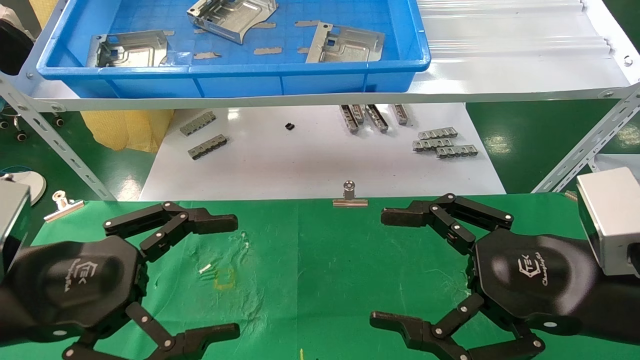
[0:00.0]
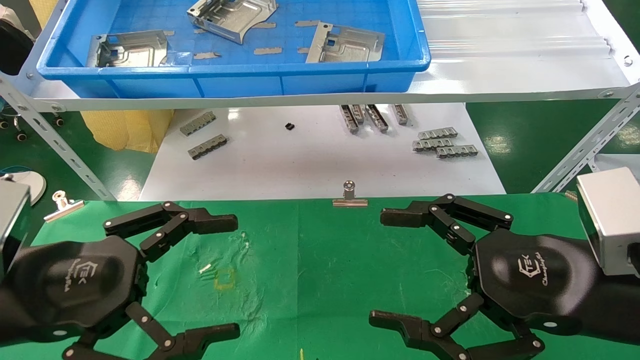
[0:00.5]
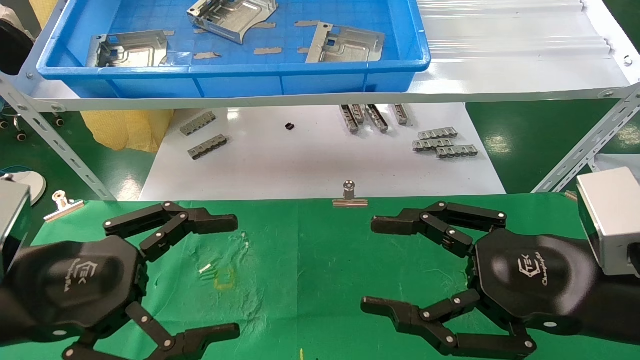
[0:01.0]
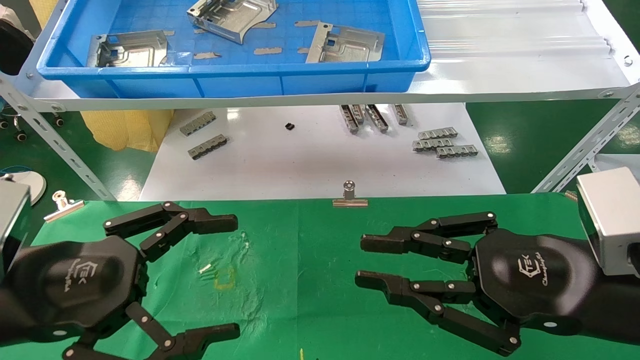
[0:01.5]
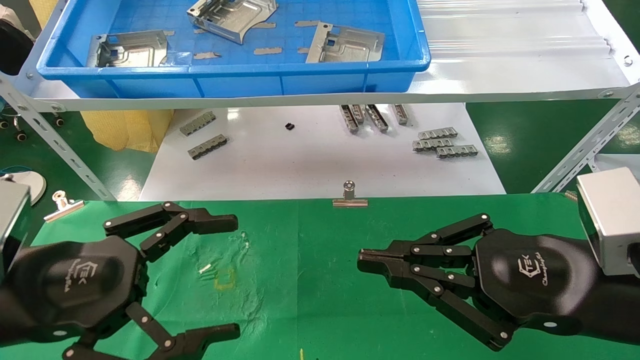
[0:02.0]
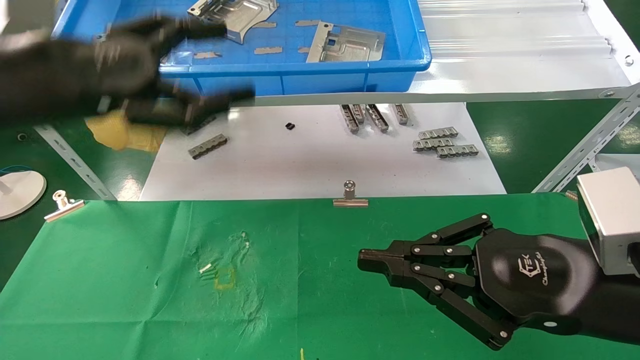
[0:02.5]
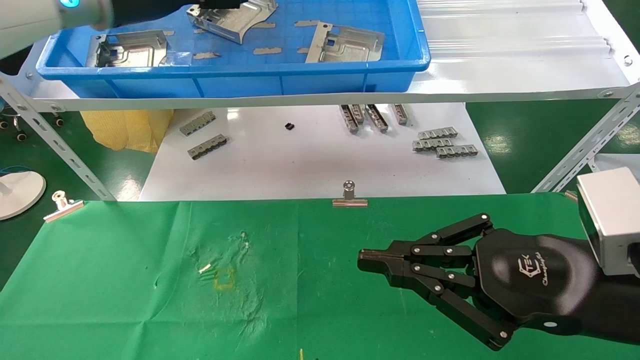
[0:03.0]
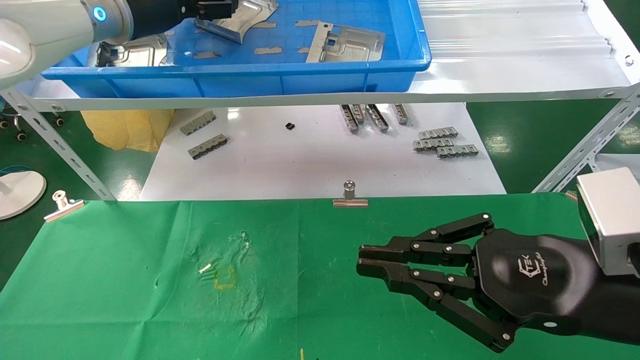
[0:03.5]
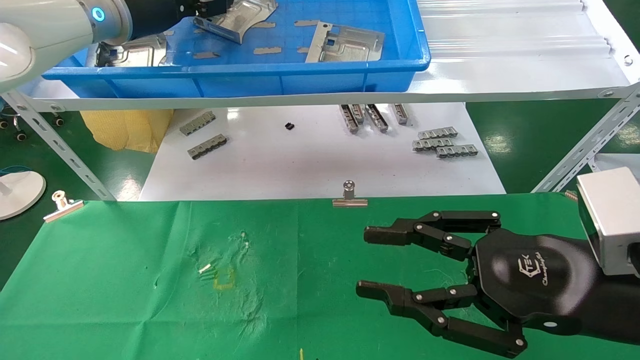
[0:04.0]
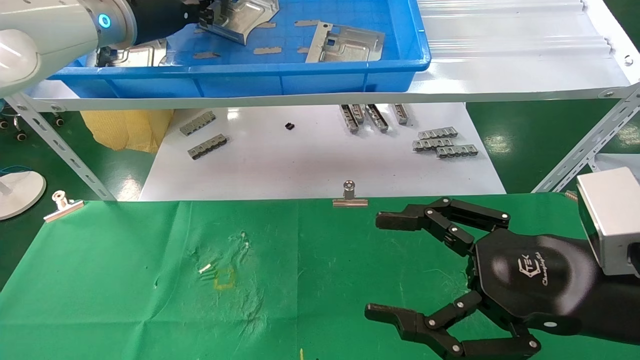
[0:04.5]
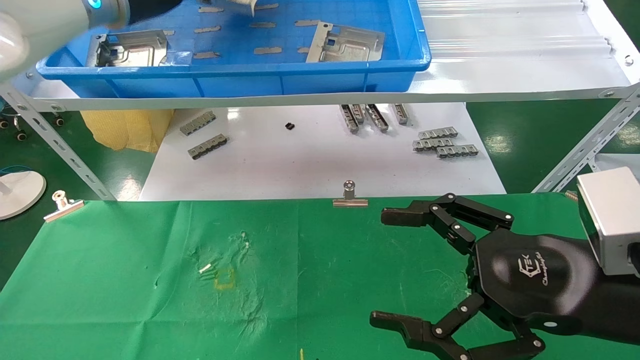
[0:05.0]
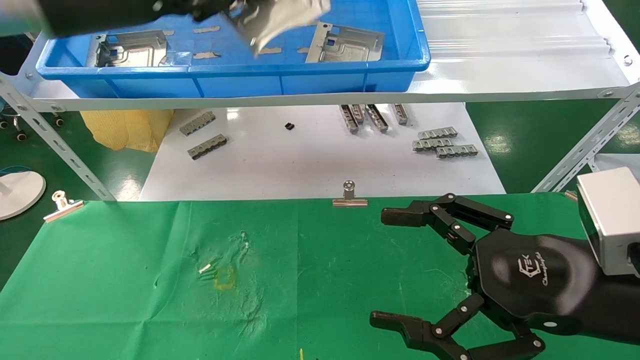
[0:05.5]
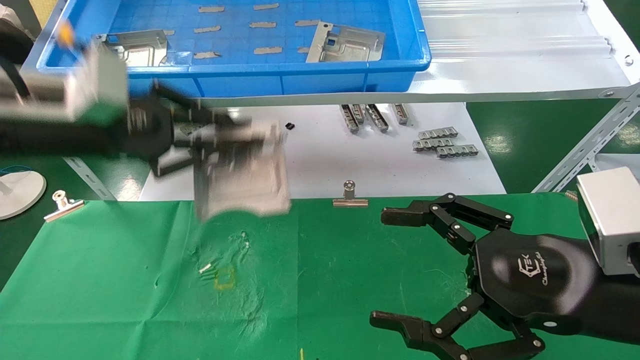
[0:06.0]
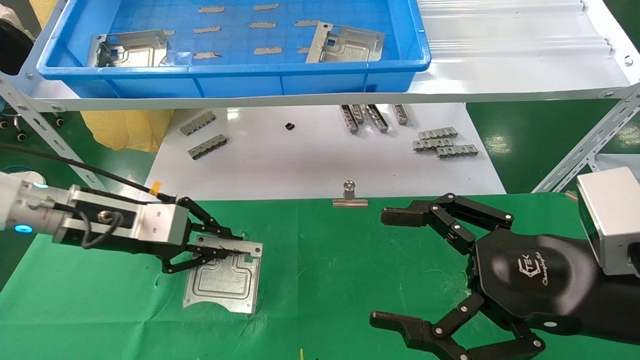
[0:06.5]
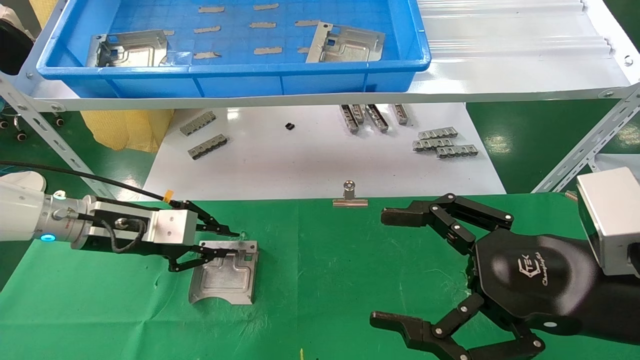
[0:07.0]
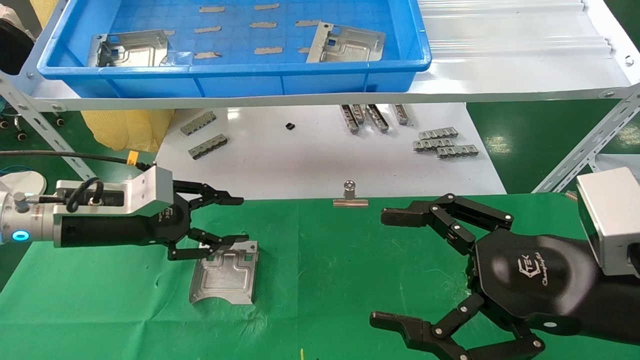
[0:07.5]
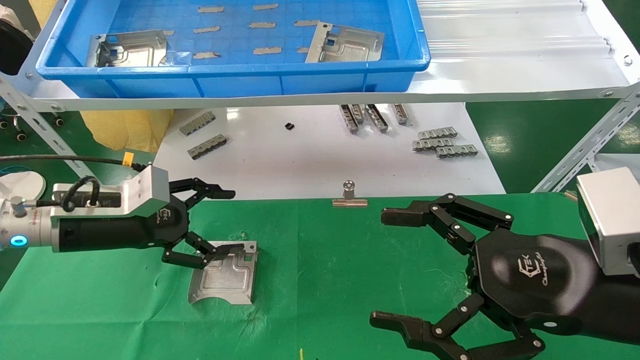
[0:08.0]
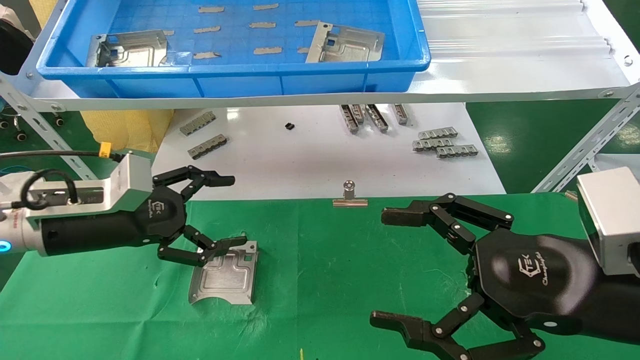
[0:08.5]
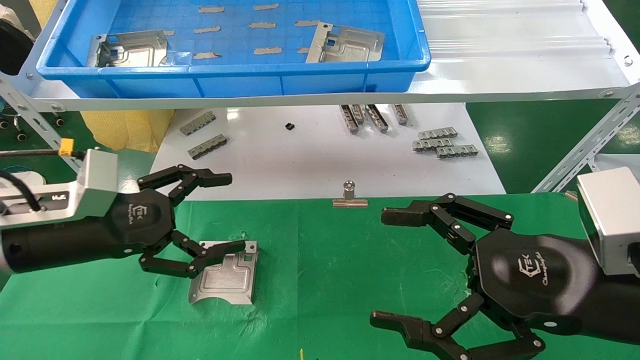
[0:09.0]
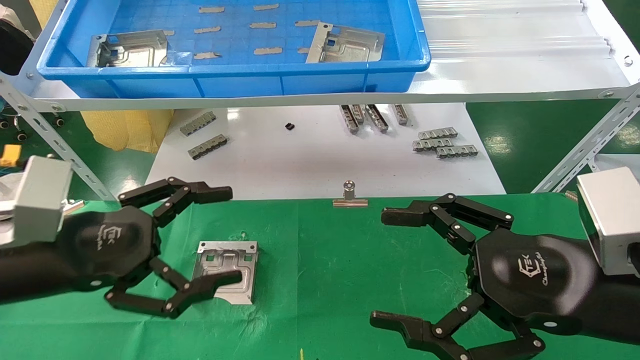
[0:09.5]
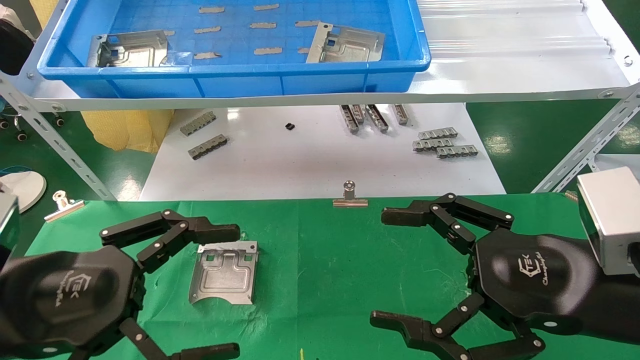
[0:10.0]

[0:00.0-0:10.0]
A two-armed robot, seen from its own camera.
Task of the whole recording: use the mechanical arm to pick up the parts and place them on the table.
Step, 0:02.5 to 0:04.5: Pick up the hard drive bracket from the feeding area.
Step, 0:05.0 to 0:07.0: Place the hard drive bracket into the box.
0:00.0 to 0:02.0: The right gripper closes.
0:02.0 to 0:04.0: The left gripper shifts approximately 35 cm forward and upward.
0:04.0 to 0:06.0: The right gripper opens up. Meanwhile the left gripper is displaced backward and downward by about 15 cm, and closes up.
0:06.0 to 0:08.0: The left gripper is displaced downward by about 10 cm, and opens.
0:08.0 to 0:10.0: The left gripper is displaced backward by some 15 cm.

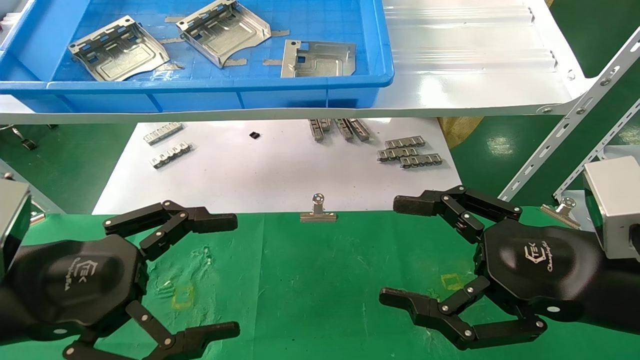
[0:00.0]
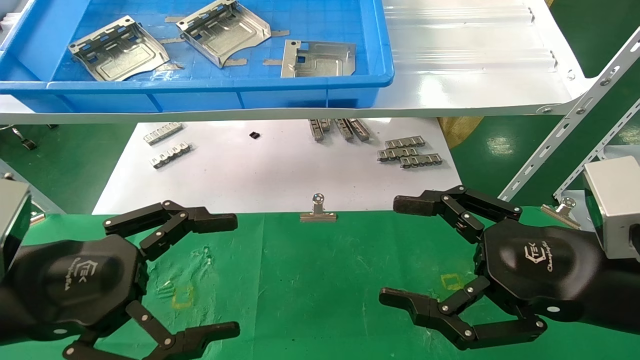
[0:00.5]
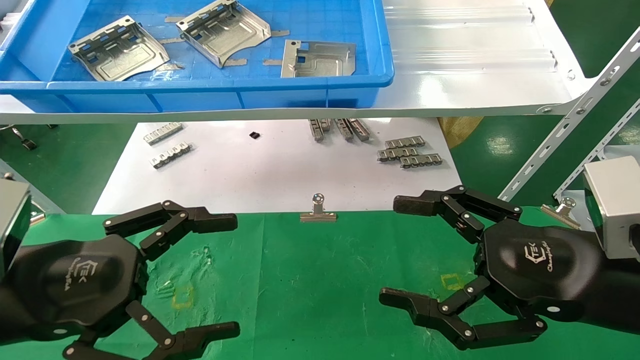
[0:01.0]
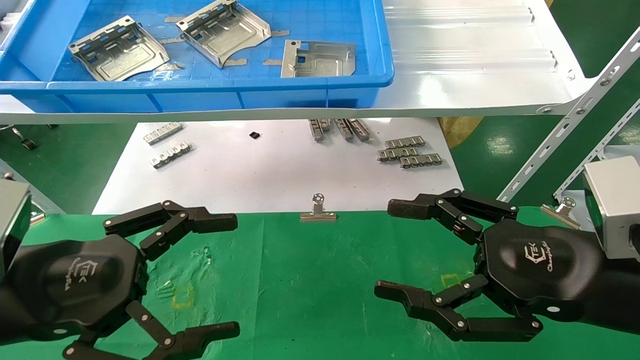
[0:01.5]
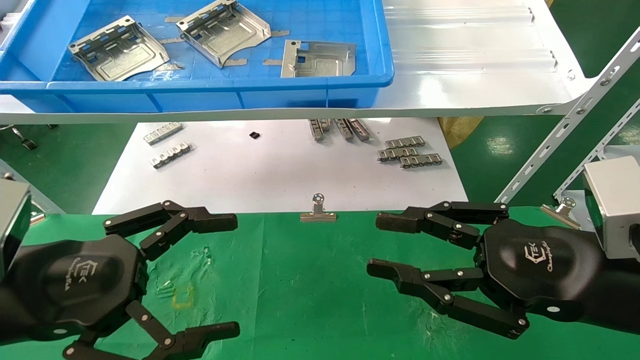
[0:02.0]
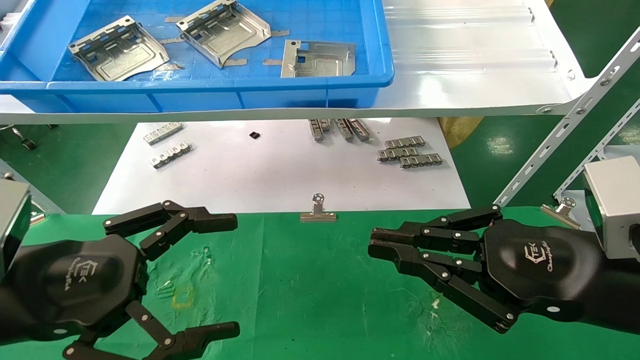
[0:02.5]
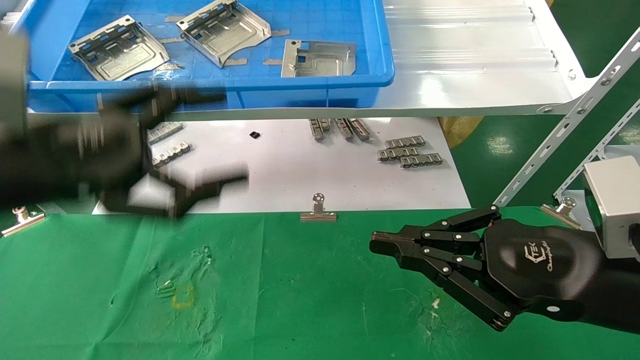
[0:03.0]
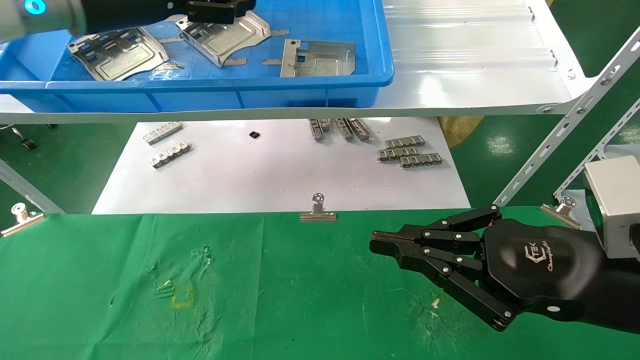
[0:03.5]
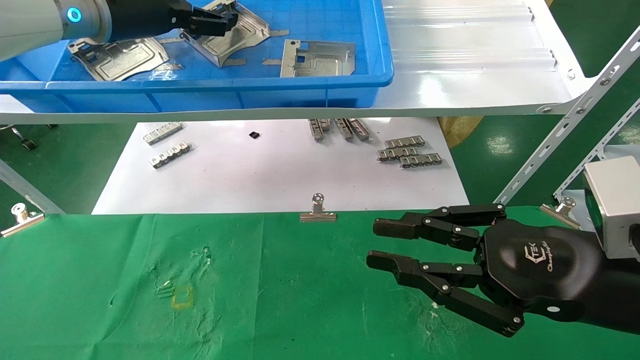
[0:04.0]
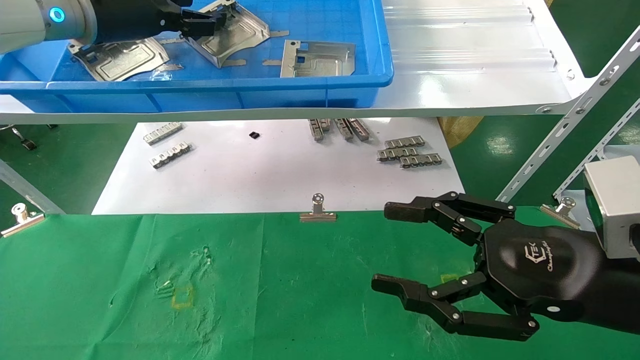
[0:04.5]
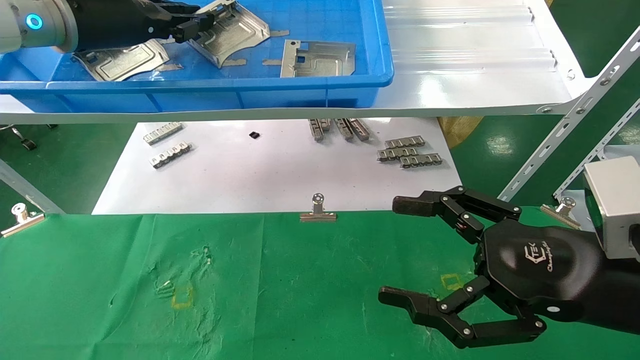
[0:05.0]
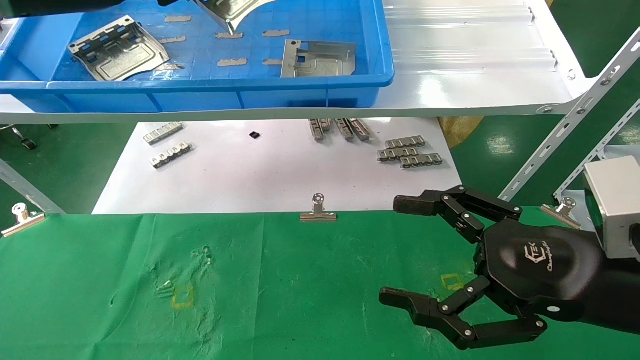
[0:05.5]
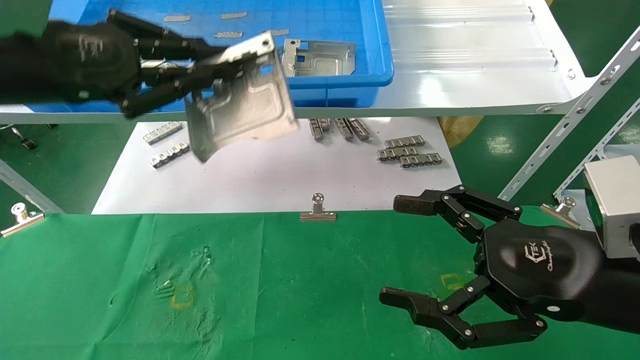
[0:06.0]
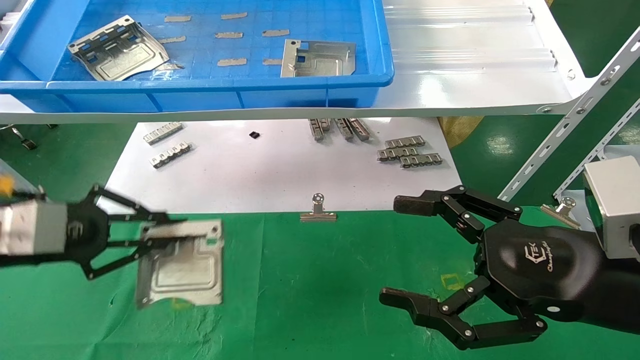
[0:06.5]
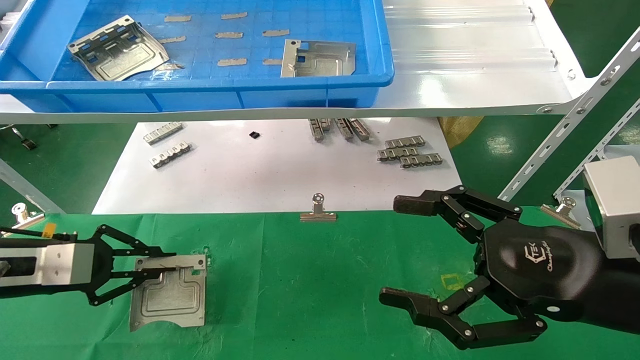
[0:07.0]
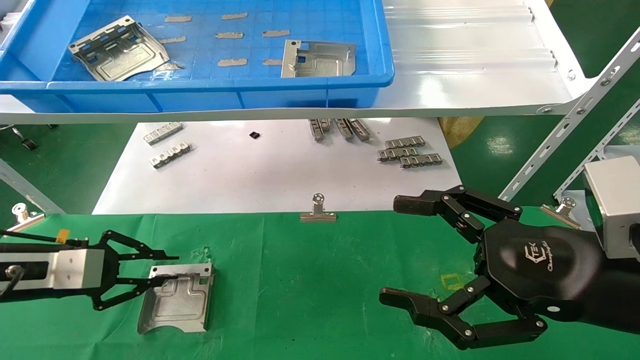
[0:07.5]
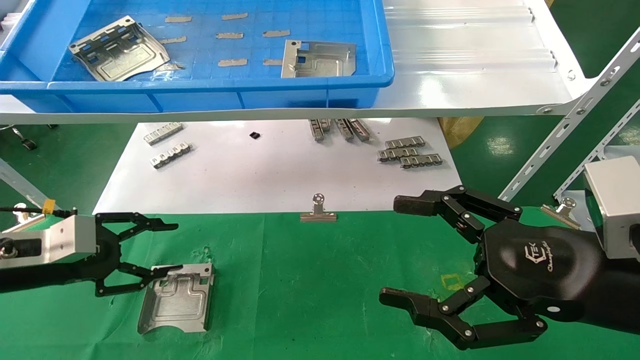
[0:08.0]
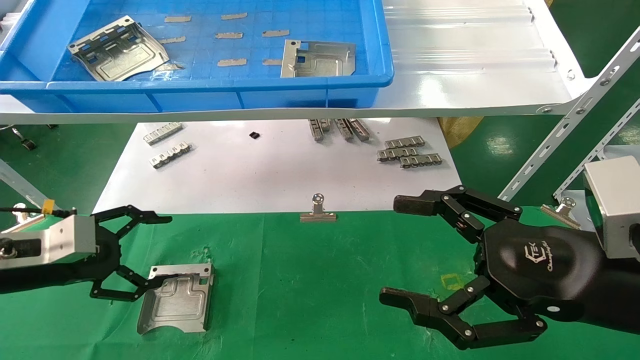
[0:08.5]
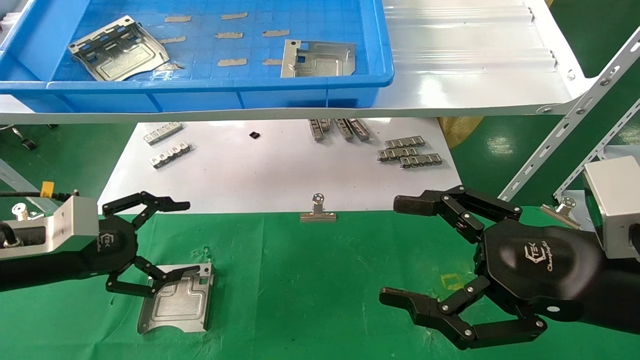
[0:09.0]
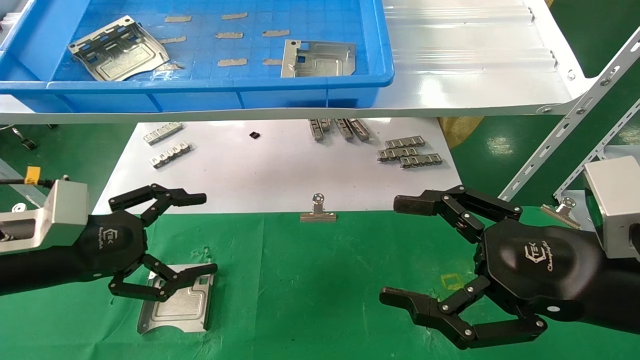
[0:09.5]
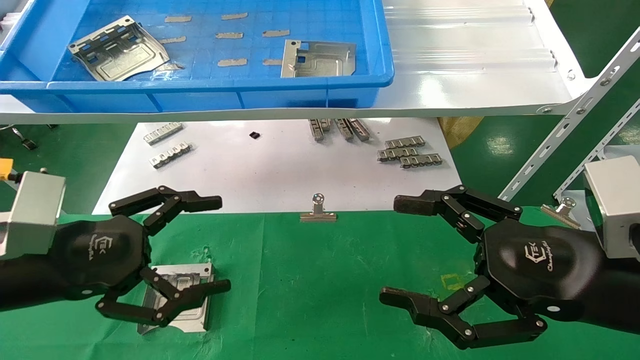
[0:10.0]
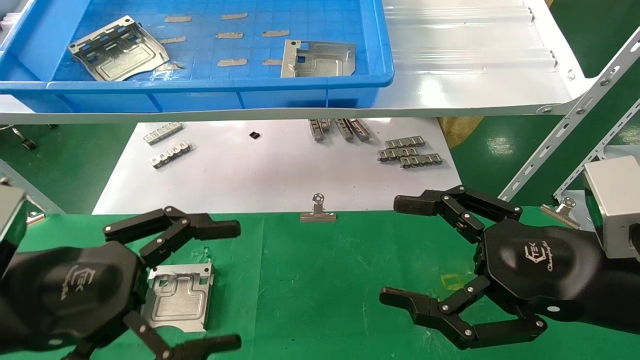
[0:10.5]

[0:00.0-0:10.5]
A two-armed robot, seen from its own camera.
Task of the whole recording: use the mechanical arm to pick up the parts and place them on the table.
Step, 0:03.0 to 0:05.0: Pick up the hard drive bracket from the feeding area.
Step, 0:05.5 to 0:07.5: Place the hard drive bracket into the box.
0:00.0 to 0:02.0: The right gripper closes up.
0:02.0 to 0:04.0: The left gripper moves forward and upward, about 35 cm.
0:04.0 to 0:06.5: The left gripper moves downward, backward and to the left, about 25 cm, and closes; the right gripper opens its fingers.
0:06.5 to 0:08.5: The left gripper travels downward by approximately 10 cm, and opens.
0:08.5 to 0:10.5: The left gripper moves backward, to the right and upward, roughly 20 cm.
